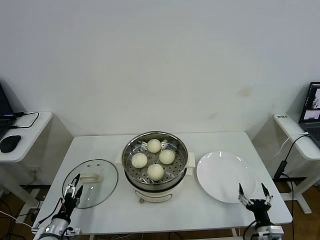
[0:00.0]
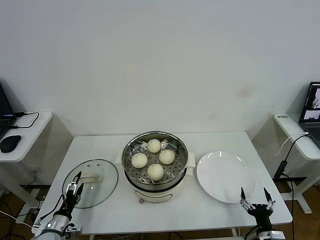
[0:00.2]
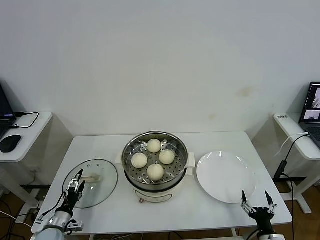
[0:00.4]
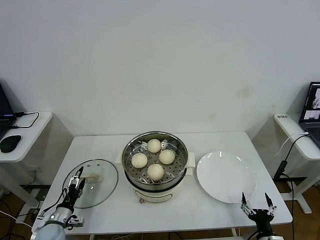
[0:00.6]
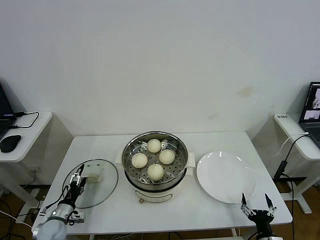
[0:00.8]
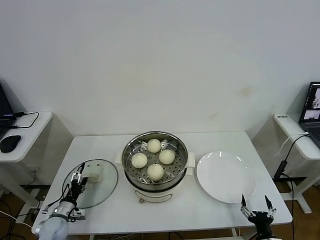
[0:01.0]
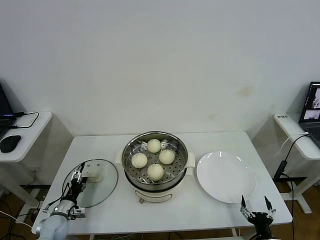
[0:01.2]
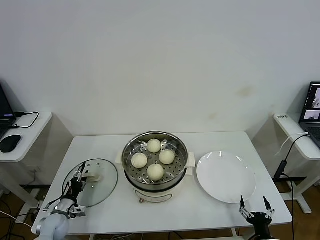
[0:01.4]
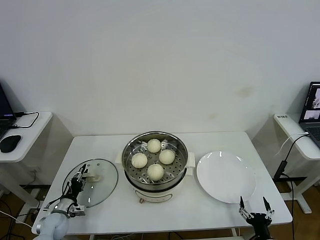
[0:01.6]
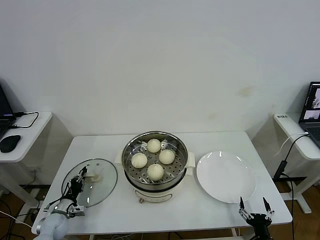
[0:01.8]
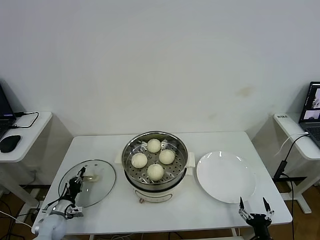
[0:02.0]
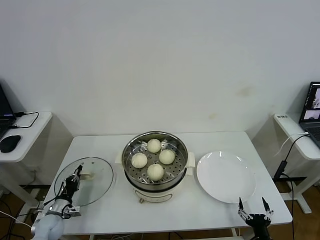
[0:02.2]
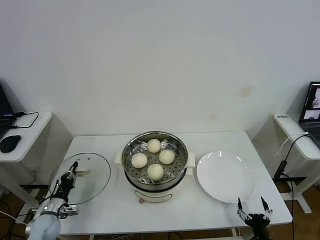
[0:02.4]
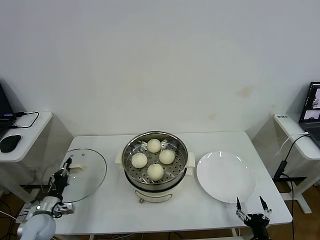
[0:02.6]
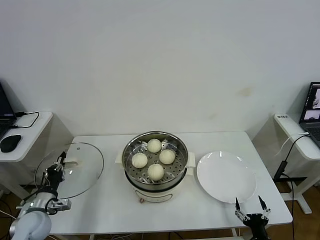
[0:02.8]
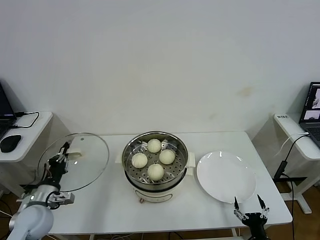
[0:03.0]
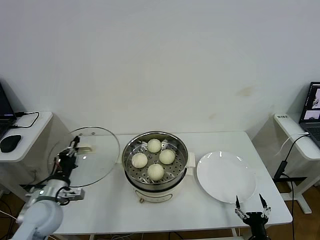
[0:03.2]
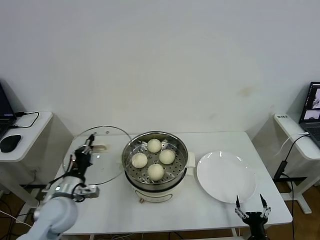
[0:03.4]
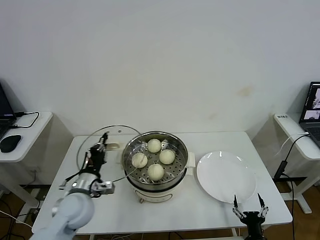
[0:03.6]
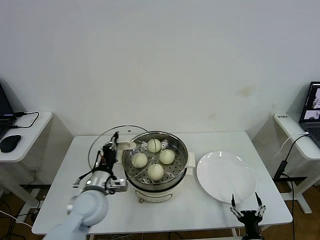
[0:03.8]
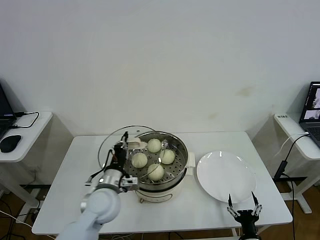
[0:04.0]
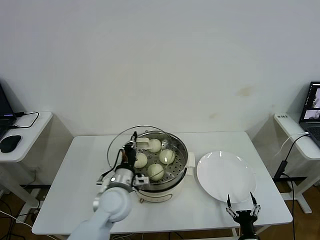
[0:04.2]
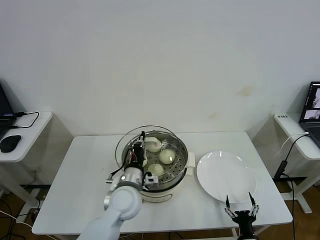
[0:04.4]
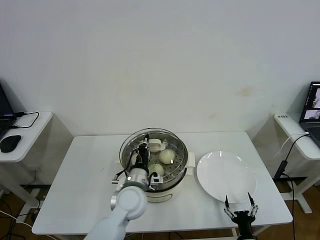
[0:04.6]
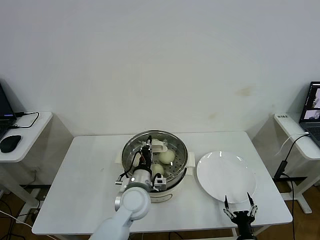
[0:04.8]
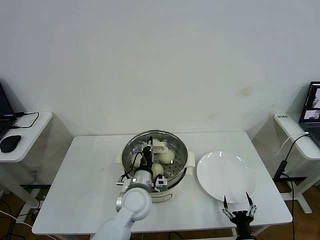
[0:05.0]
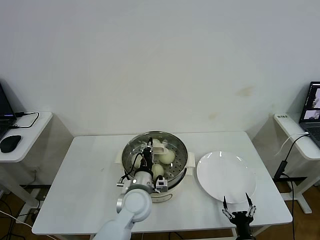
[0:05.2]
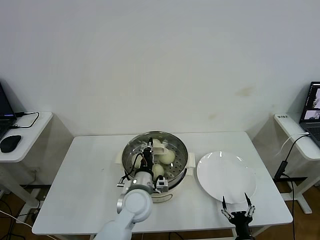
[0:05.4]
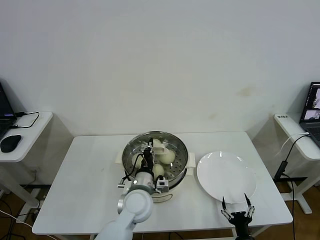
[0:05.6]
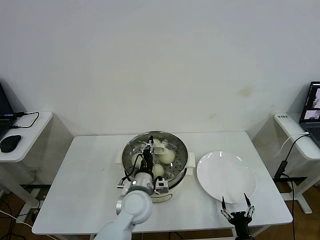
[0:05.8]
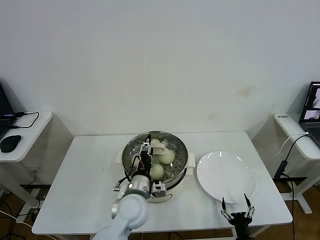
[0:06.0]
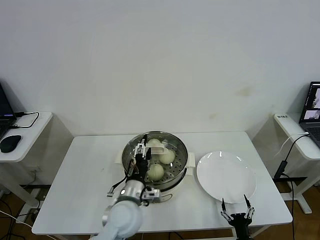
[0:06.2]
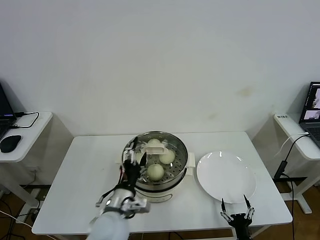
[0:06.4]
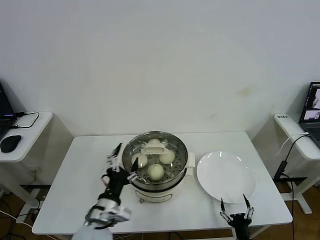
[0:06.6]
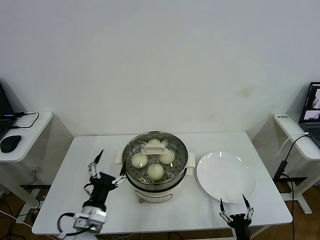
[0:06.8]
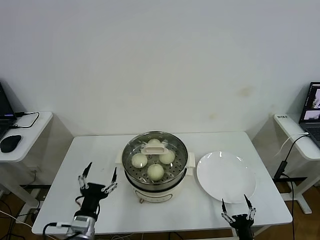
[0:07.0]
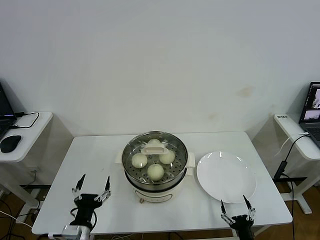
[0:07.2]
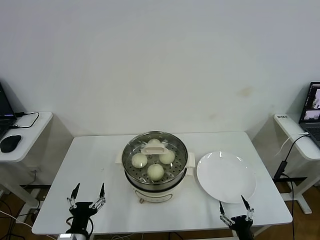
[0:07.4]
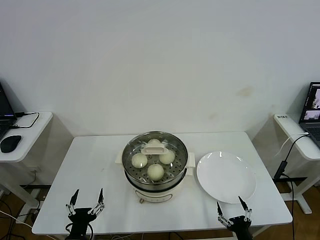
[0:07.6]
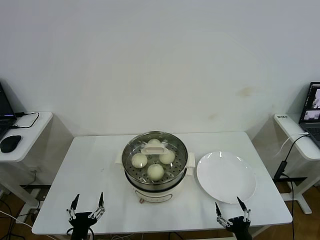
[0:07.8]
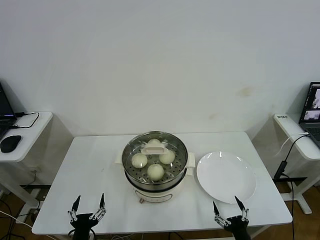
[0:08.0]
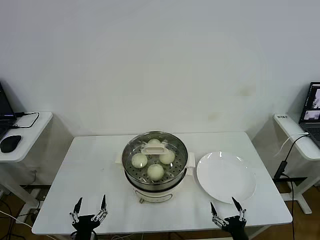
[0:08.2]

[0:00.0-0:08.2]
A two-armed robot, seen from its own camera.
Step, 0.0 to 2.0 s: Grasp the pot lid with left gripper.
Step, 2.2 to 5.8 s: Place the pot lid on the steamer with left gripper.
0.0 to 1.6 s: The left gripper moves forward, roughly 10 cm, and closes.
1.6 to 3.2 s: The left gripper is displaced upward by roughly 20 cm, and closes.
3.2 to 5.0 s: The left gripper heads to the right, covering about 25 cm.
5.0 to 6.6 s: The left gripper goes about 15 cm backward and to the left, and opens.
6.6 to 8.2 s: The left gripper shifts some 20 cm downward, backward and to the left. Meanwhile the right gripper shifts some 5 cm upward.

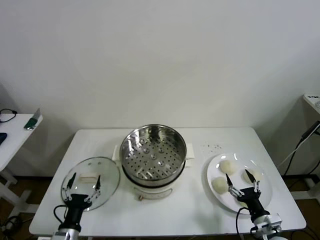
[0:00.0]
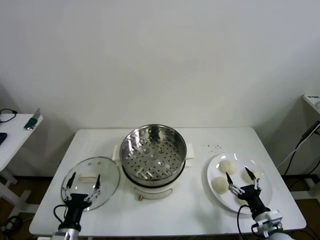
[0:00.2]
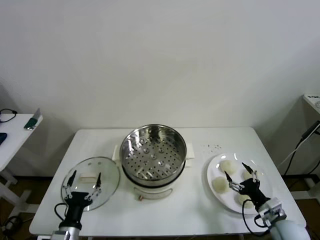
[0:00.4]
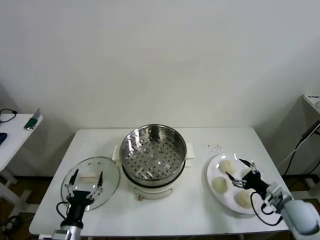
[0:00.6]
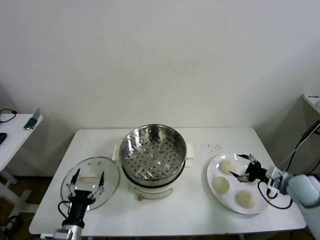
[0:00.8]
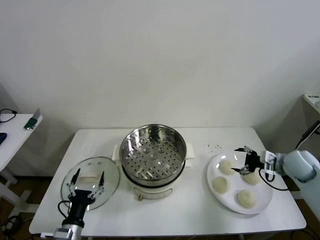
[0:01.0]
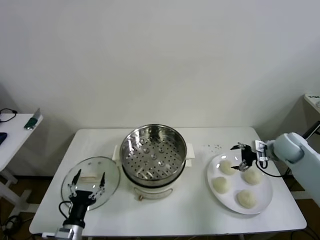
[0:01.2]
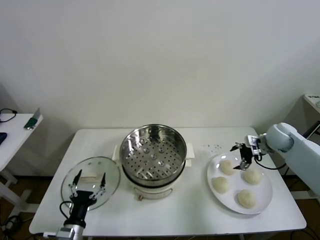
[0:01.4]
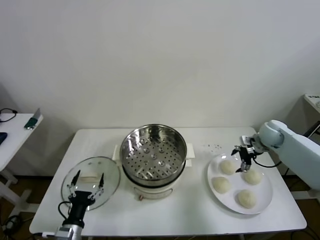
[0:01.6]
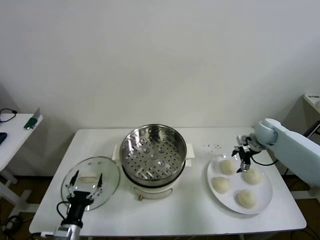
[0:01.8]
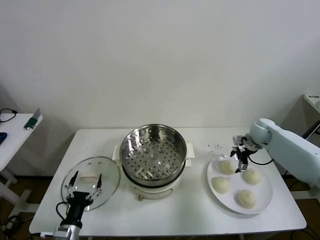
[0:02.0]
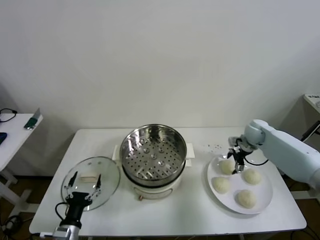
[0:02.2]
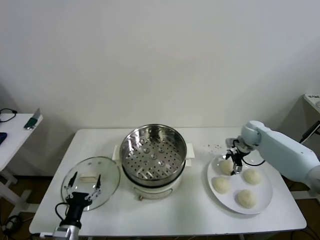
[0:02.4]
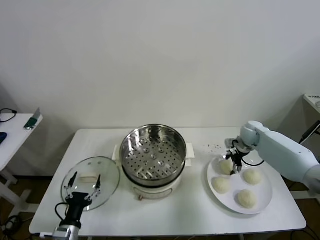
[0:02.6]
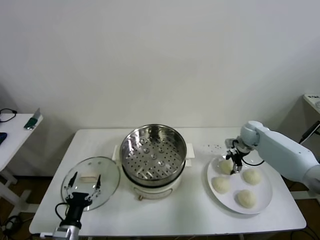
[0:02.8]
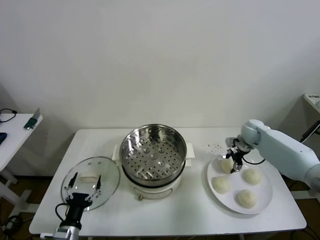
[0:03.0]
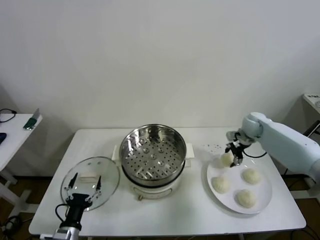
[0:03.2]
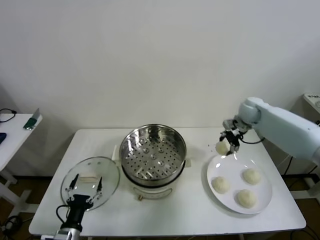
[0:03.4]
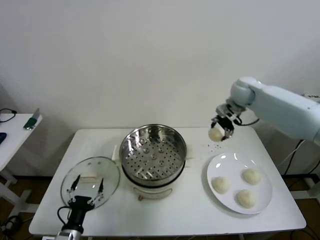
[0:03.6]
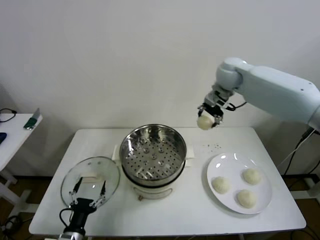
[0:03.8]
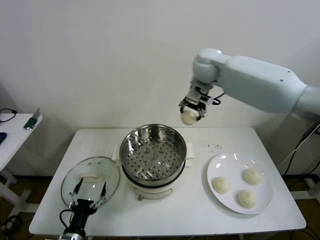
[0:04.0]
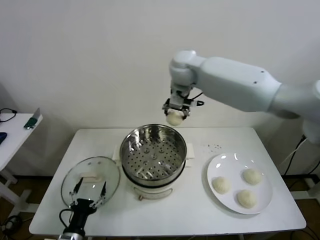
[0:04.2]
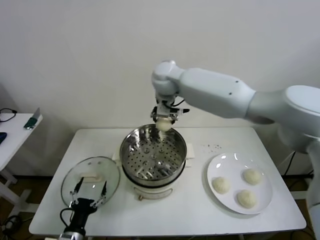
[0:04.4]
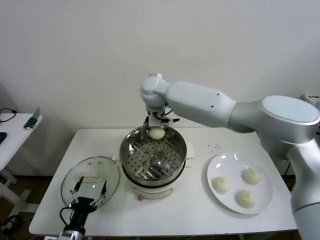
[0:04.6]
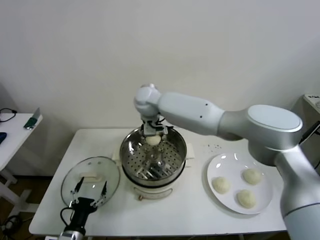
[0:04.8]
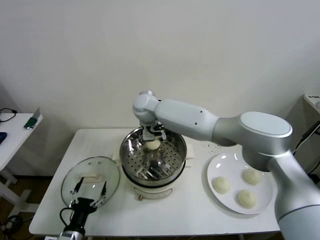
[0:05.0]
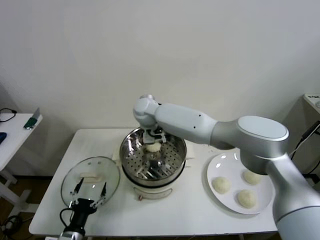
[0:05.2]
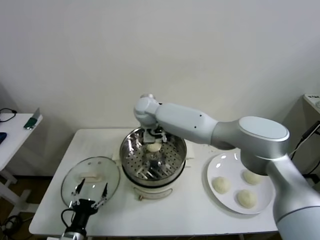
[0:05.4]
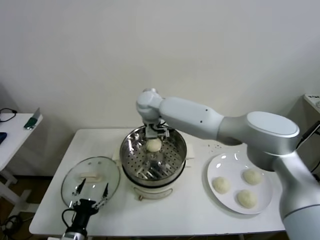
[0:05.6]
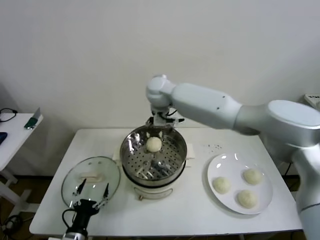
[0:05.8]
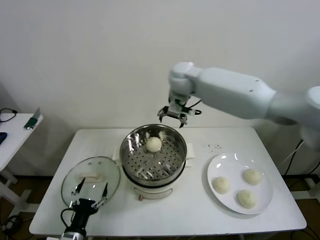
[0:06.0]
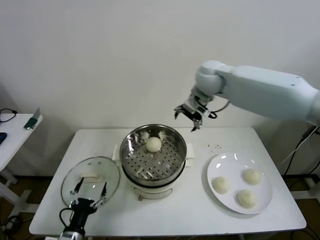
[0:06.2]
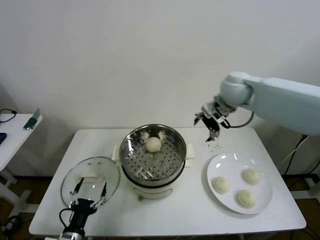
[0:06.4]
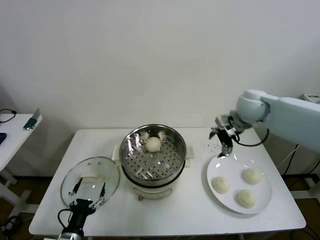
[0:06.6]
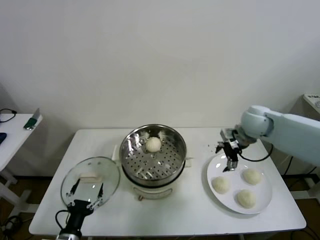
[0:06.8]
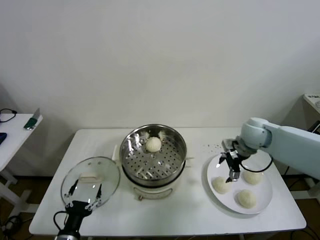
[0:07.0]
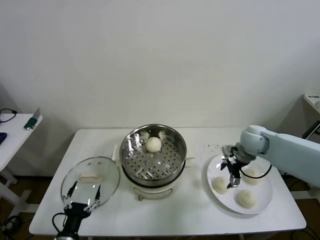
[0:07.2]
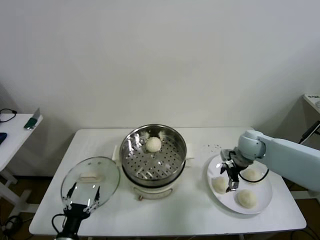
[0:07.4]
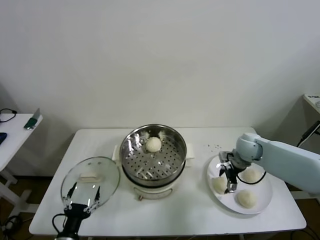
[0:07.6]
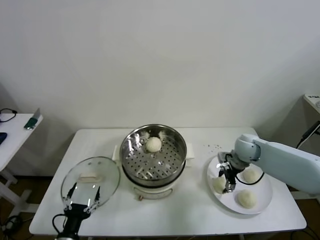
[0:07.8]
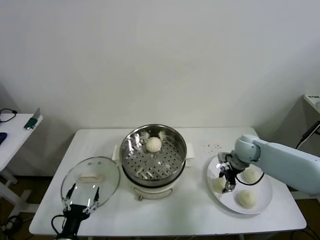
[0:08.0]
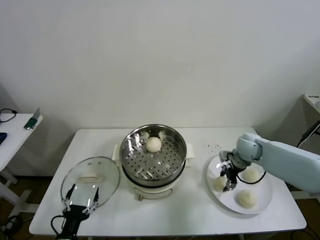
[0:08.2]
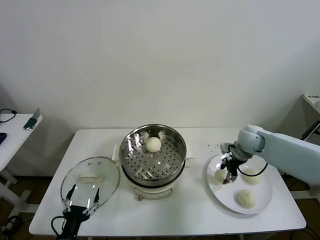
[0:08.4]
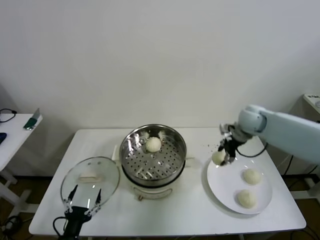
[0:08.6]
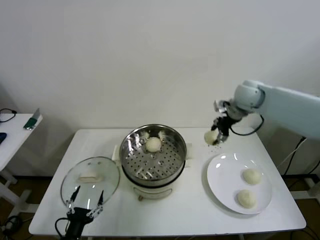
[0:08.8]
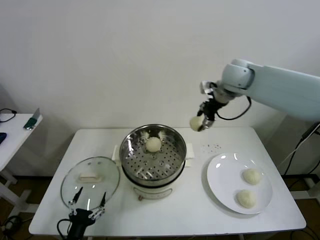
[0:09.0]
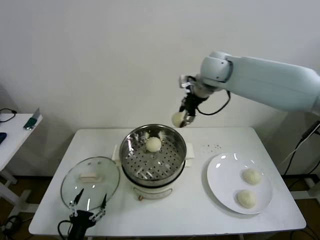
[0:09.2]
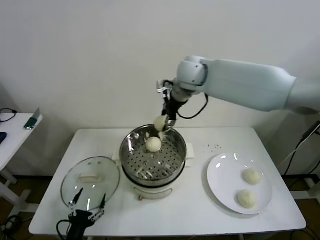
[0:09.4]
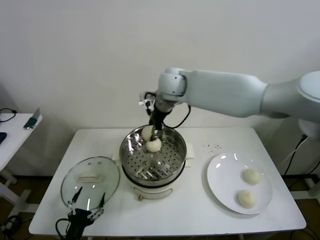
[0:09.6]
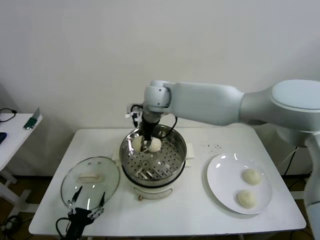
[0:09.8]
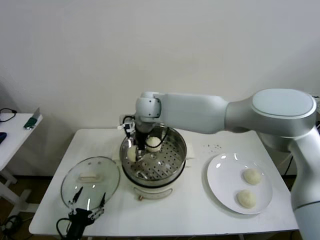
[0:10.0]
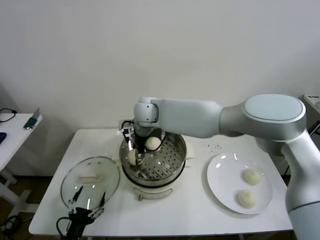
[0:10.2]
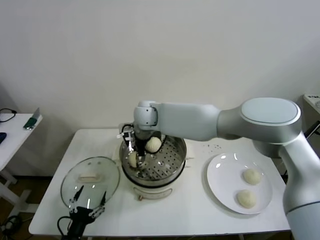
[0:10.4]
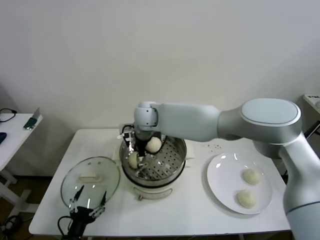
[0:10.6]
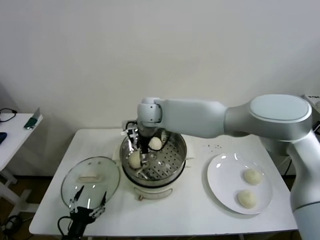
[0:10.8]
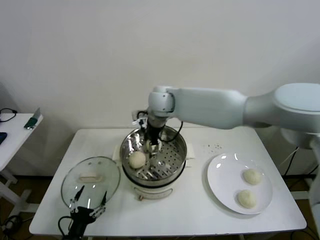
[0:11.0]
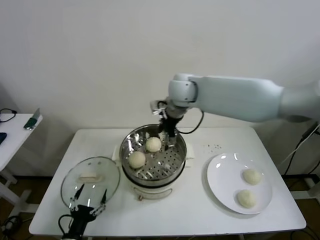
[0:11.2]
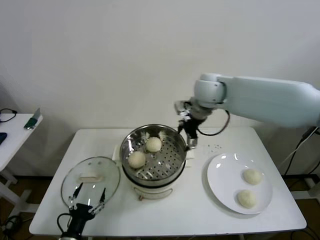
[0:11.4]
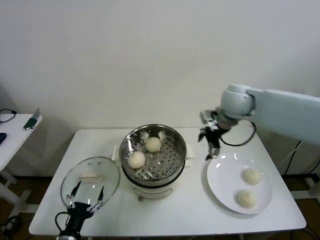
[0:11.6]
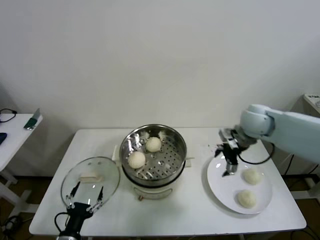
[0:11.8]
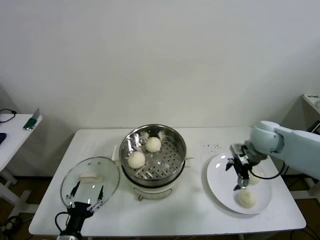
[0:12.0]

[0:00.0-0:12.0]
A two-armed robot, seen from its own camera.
Step, 0.0 to 2.6 s: Grasp the baozi in the plate with right gripper.
Step, 2.8 to 5.8 s: Place the baozi on the steamer with right gripper.
Step, 6.0 to 8.0 s: Grasp the baozi in the plate with right gripper.
Step, 8.2 to 10.8 s: Place the baozi on the steamer with right gripper.
1.6 to 3.0 s: The right gripper shifts by some 5 cm, and closes up.
3.0 to 4.4 s: The right gripper goes some 40 cm to the left and upward.
4.4 to 6.0 s: The right gripper travels to the right by approximately 10 cm, and opens its fingers.
6.0 to 7.6 s: The right gripper heads downward and to the right, covering some 35 cm.
7.6 to 9.0 s: The right gripper is displaced upward and to the left by about 30 cm, and closes up.
9.0 to 10.4 s: The right gripper is displaced to the left and downward by roughly 30 cm.
10.4 to 12.0 s: The right gripper goes approximately 40 cm to the right, and opens.

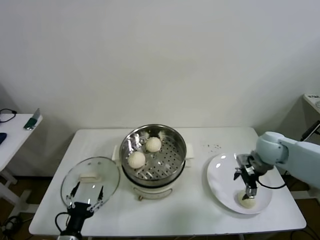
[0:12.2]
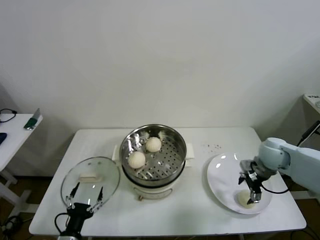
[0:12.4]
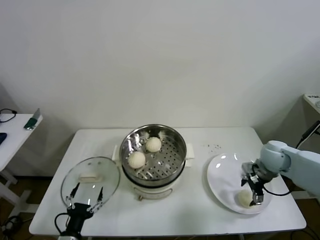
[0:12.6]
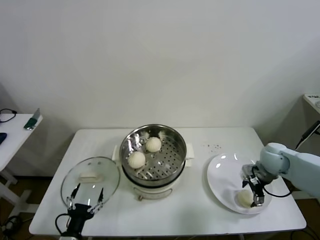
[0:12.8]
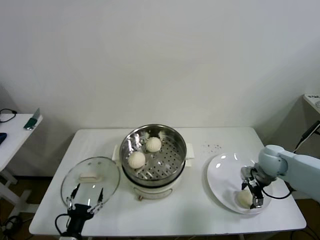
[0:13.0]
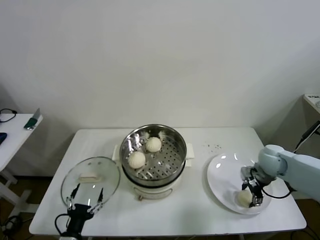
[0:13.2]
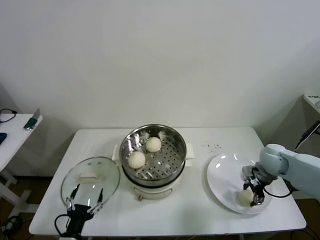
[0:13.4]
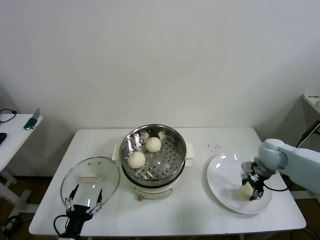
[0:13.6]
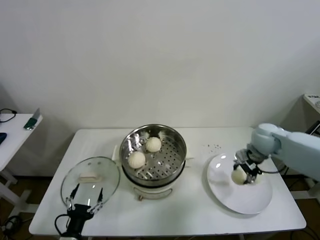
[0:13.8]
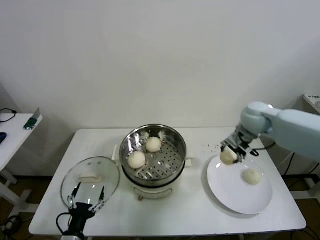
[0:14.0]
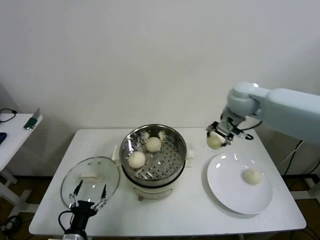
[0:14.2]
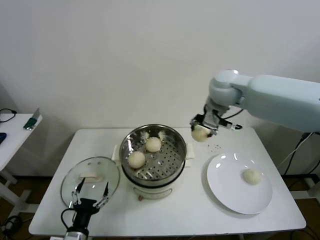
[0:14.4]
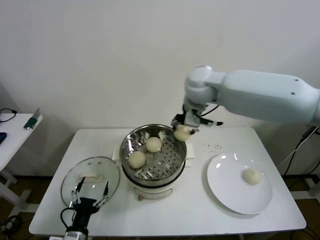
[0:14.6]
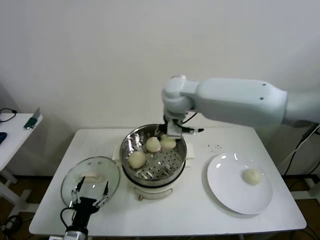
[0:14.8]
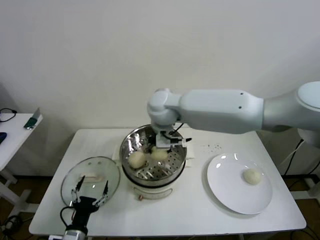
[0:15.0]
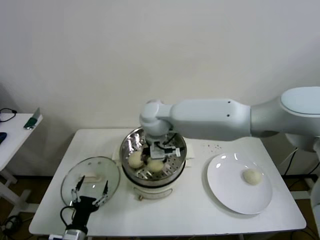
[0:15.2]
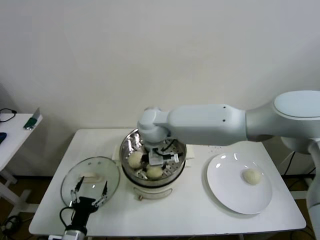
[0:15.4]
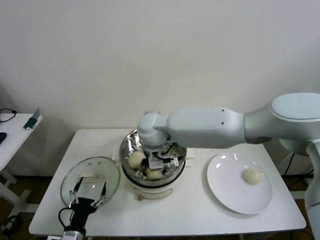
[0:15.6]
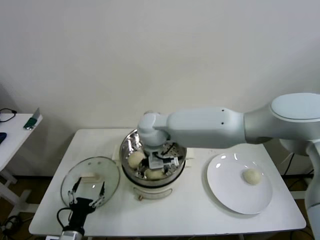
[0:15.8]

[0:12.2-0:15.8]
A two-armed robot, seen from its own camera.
12.2 to 14.0 s: The right gripper moves upward, to the left and forward, some 15 cm, and closes.
14.0 to 15.8 s: The right gripper moves to the left, some 30 cm, and opens.
